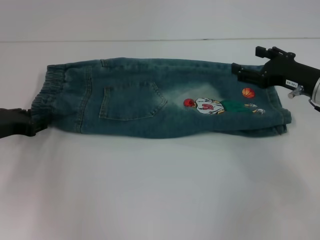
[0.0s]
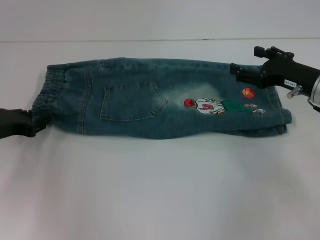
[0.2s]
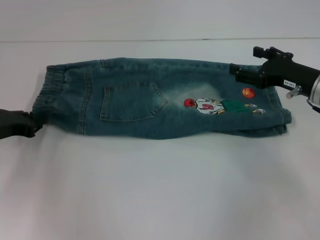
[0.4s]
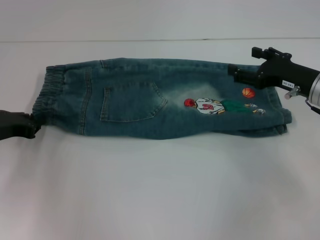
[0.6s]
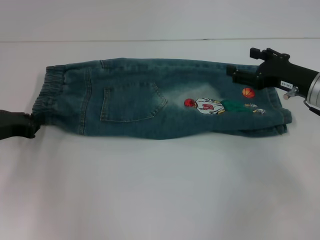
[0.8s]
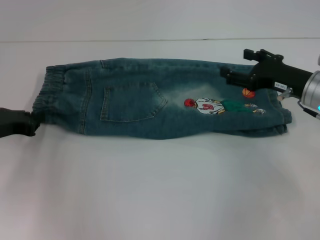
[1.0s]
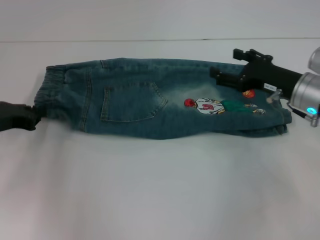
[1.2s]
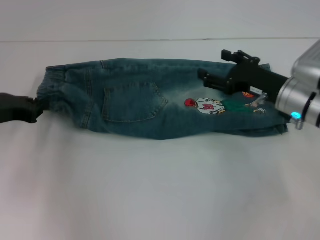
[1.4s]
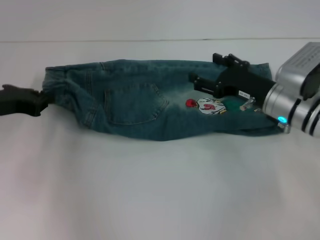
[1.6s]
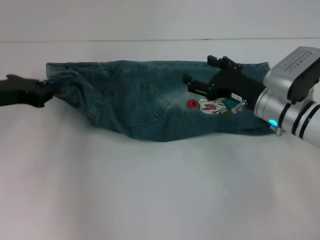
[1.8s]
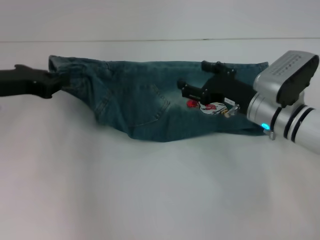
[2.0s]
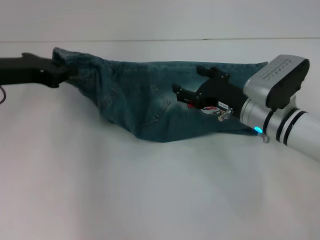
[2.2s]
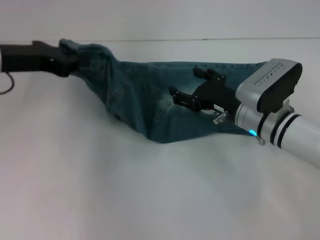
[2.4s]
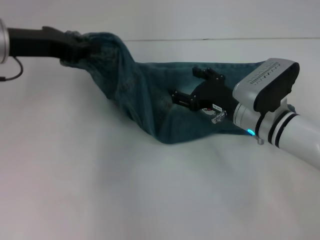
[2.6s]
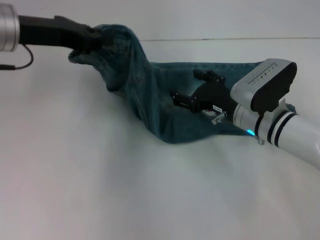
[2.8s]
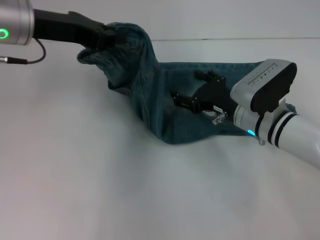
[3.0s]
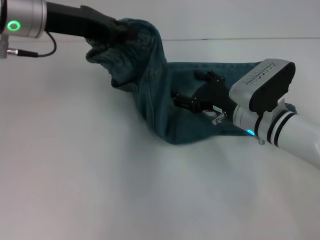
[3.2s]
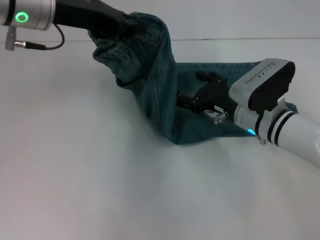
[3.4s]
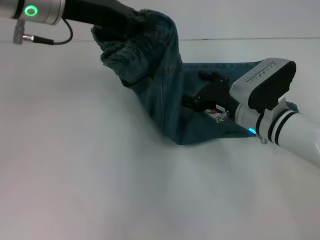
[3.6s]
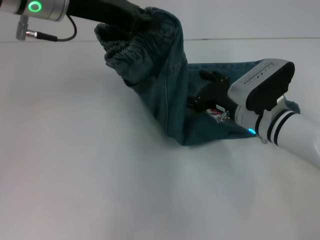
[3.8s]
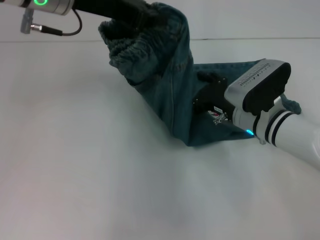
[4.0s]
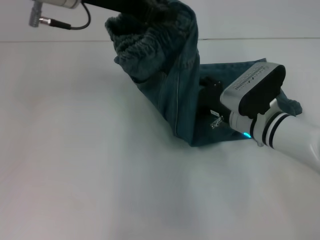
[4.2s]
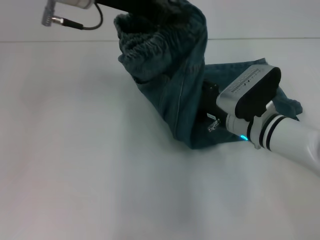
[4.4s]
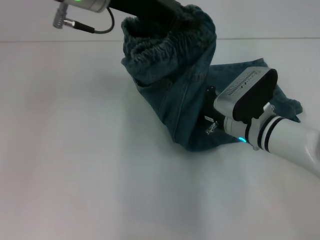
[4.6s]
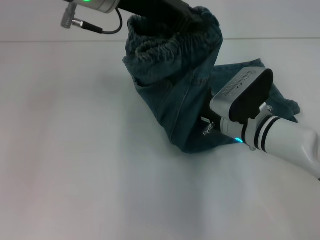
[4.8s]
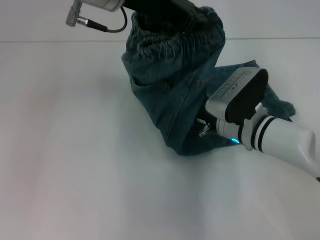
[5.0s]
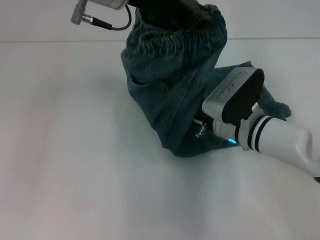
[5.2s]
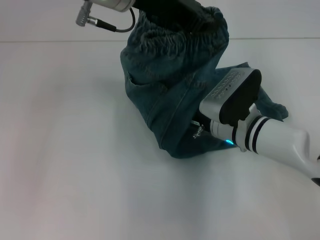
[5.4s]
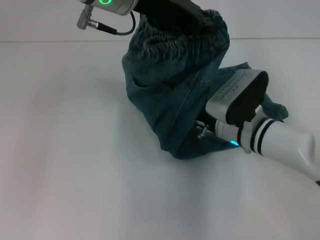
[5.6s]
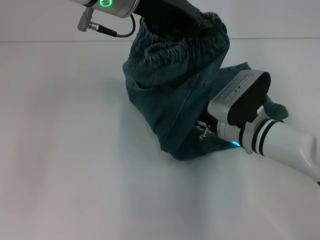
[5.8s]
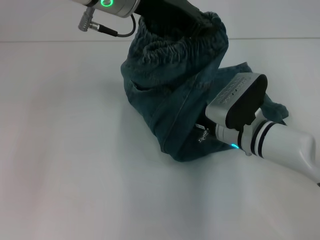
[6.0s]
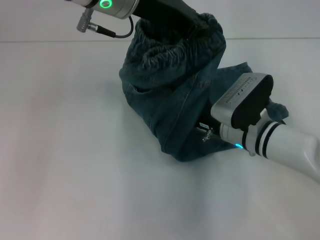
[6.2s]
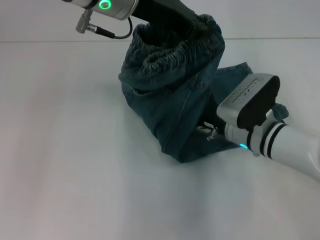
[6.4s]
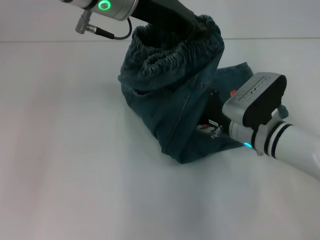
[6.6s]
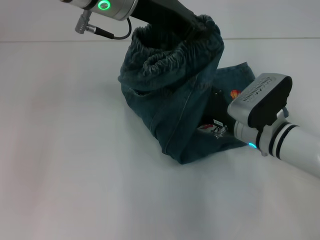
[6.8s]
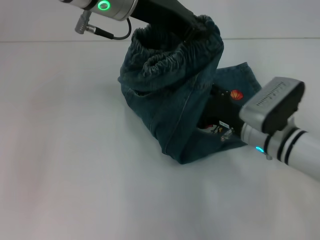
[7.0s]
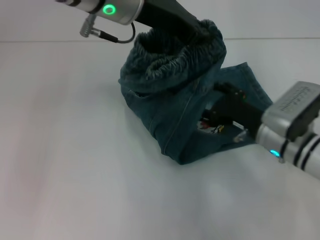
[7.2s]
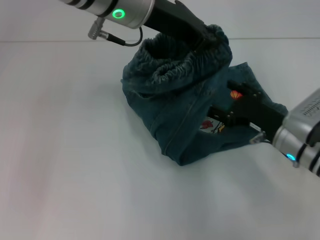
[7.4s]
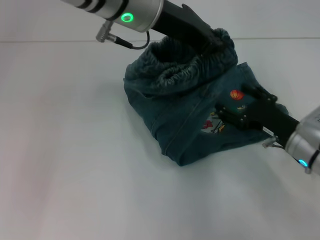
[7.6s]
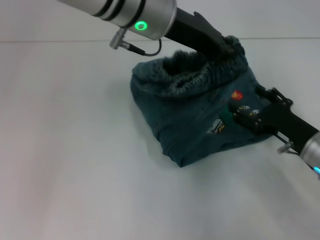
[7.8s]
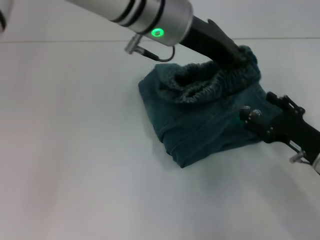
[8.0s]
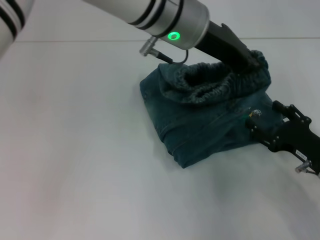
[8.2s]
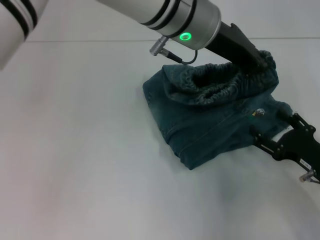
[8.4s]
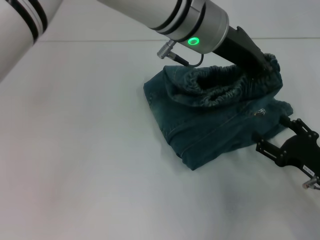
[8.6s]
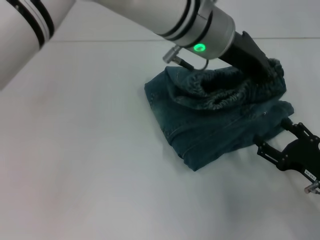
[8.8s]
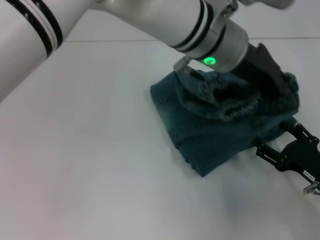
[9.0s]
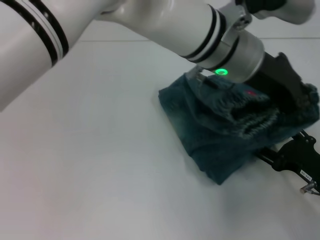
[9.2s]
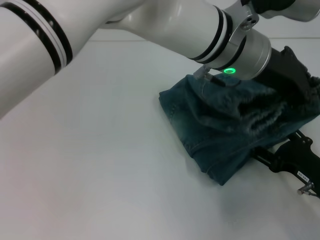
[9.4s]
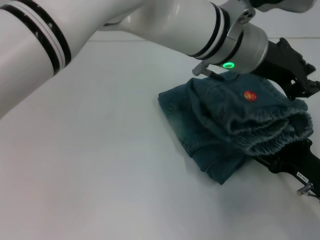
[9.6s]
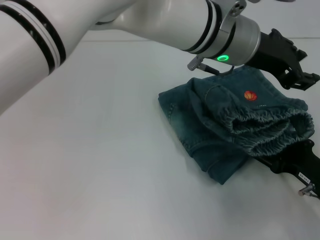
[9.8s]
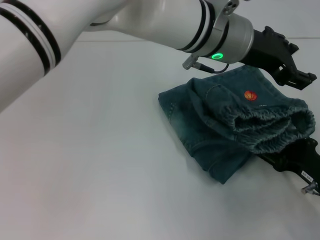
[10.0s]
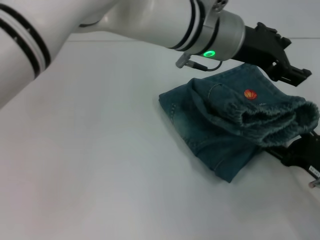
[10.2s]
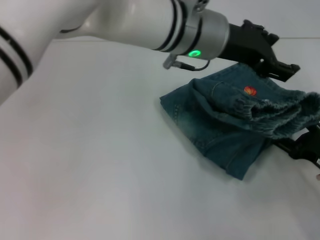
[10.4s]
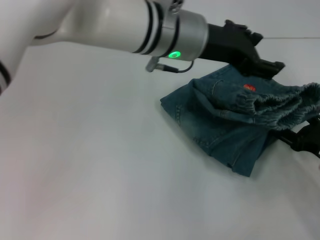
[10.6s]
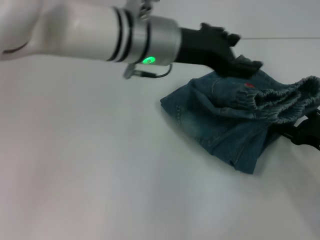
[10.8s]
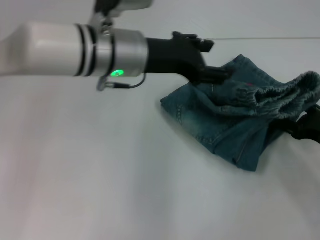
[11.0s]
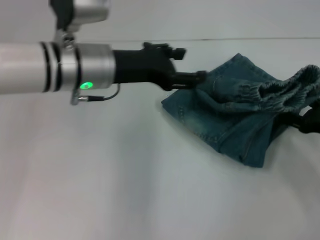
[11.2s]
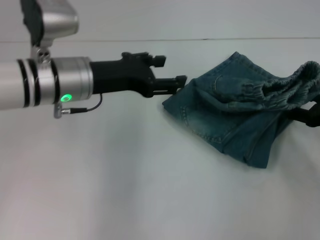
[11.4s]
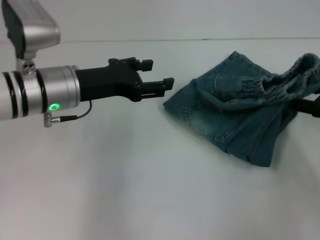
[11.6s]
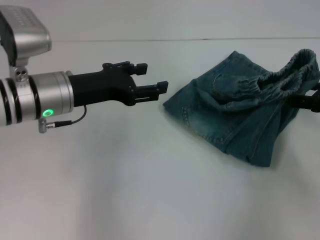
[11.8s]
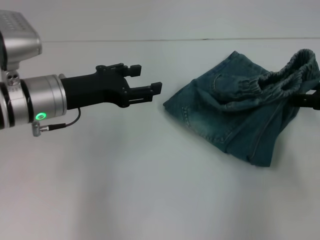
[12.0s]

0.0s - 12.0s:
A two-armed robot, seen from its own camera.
Step, 1.4s - 6.2s: Press the middle of the pants with your right hand.
Step, 6.4s - 10.0s: Fold to the right with your left hand.
0.0s - 1.6s: The left gripper shifts approximately 5 cm upward, and closes its fingers. The right gripper heads to the left, covering approximately 5 cm.
1.6s - 3.0s: The left gripper is displaced upward and to the right by some 15 cm.
3.0s - 4.4s: The left gripper heads to the right, covering roughly 10 cm.
4.4s - 6.0s: The grippers stay close to where they were, moving slightly.
6.0s - 7.6s: The right gripper moves to the right, about 10 cm.
7.6s - 9.0s: The left gripper shifts some 10 cm to the right. Meanwhile the right gripper is displaced backward by approximately 10 cm.
9.0s - 10.4s: The left gripper opens its fingers.
10.4s - 12.0s: The right gripper travels upward and forward by approximately 15 cm; the left gripper travels to the left and downward by about 20 cm.

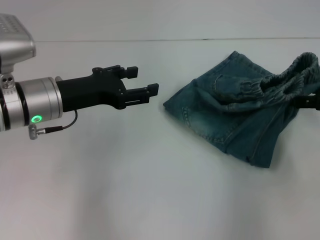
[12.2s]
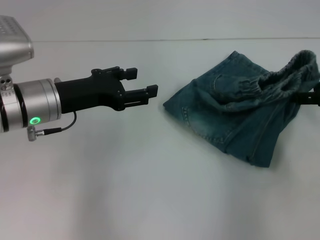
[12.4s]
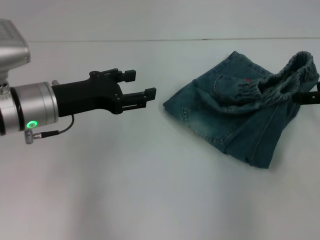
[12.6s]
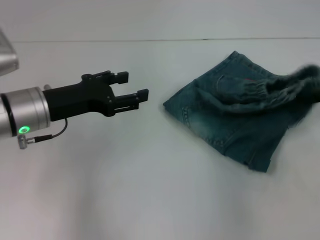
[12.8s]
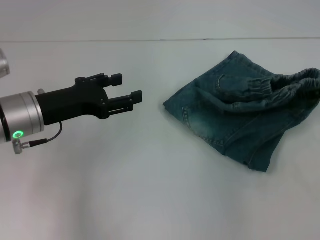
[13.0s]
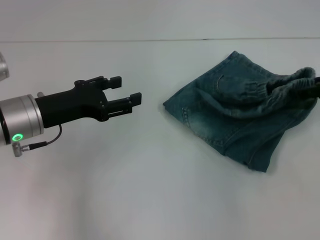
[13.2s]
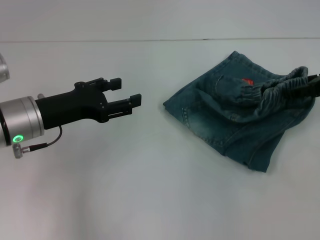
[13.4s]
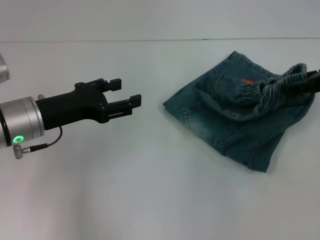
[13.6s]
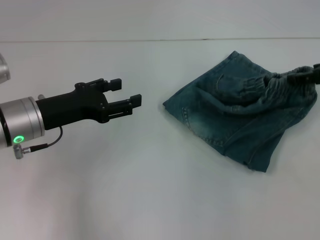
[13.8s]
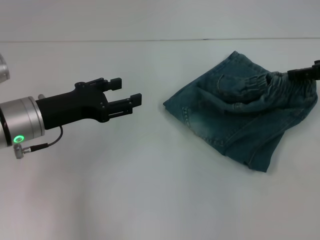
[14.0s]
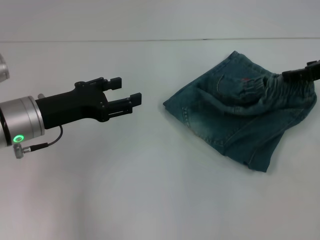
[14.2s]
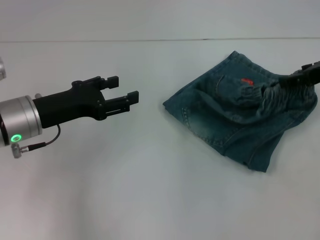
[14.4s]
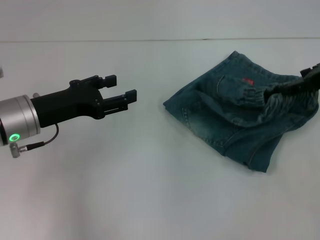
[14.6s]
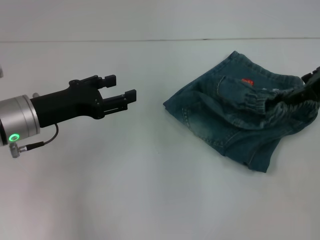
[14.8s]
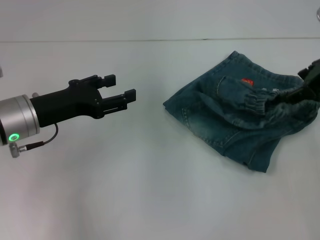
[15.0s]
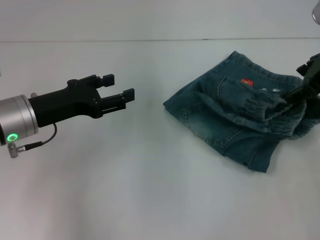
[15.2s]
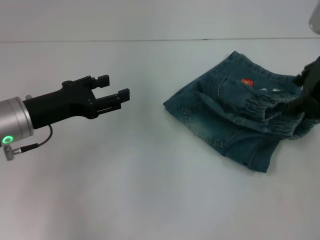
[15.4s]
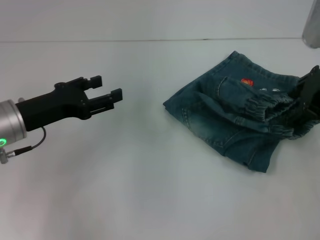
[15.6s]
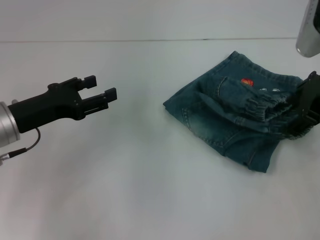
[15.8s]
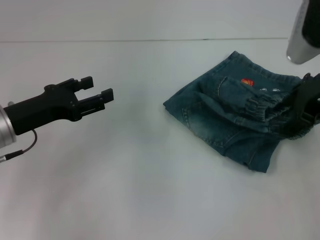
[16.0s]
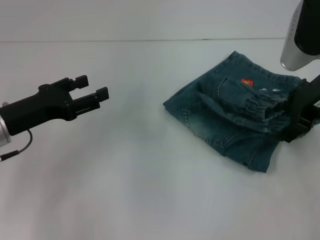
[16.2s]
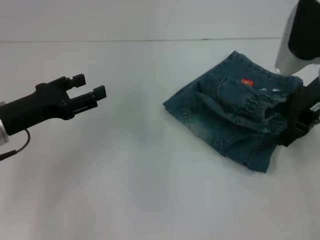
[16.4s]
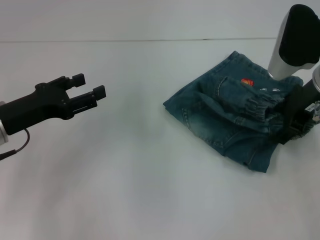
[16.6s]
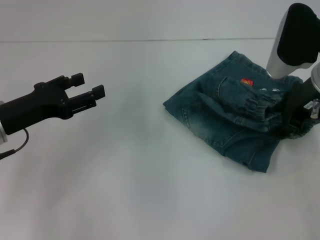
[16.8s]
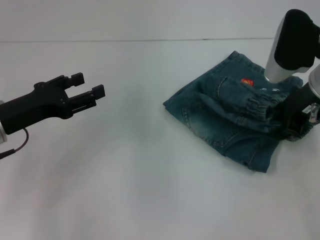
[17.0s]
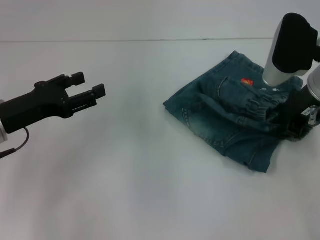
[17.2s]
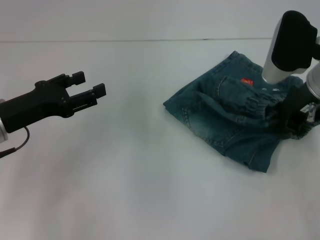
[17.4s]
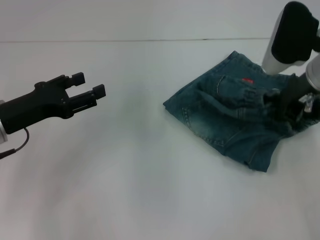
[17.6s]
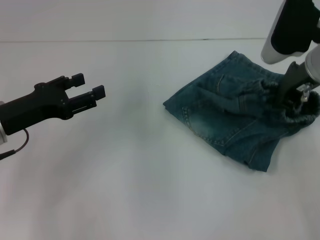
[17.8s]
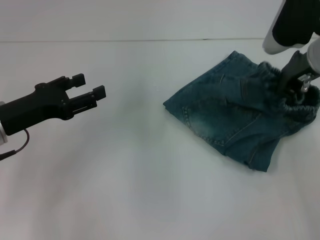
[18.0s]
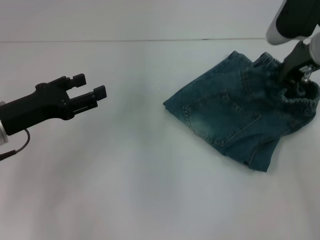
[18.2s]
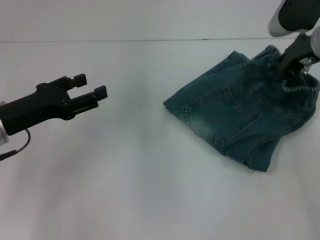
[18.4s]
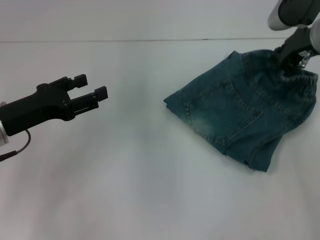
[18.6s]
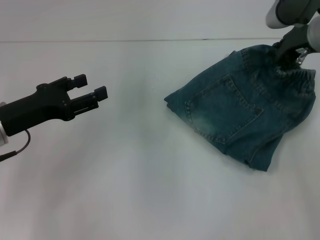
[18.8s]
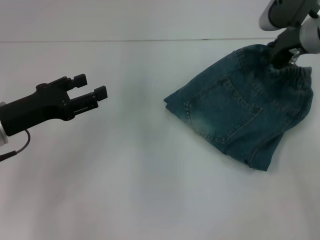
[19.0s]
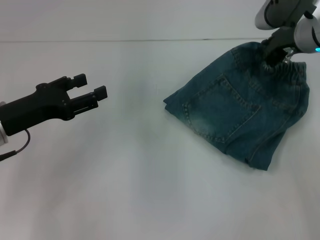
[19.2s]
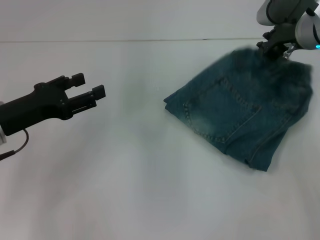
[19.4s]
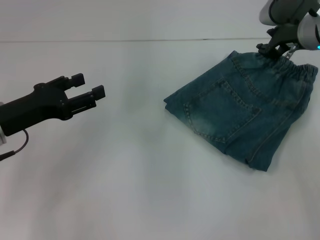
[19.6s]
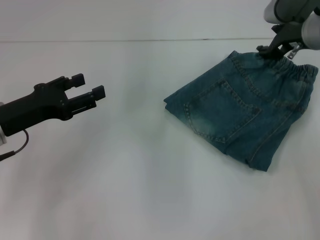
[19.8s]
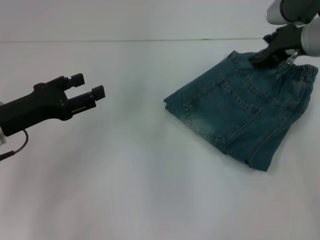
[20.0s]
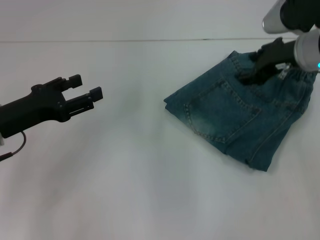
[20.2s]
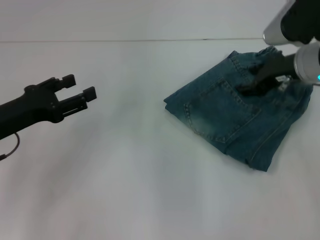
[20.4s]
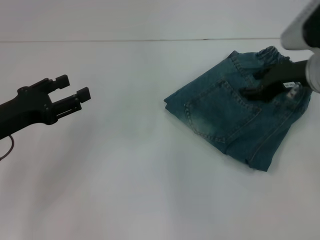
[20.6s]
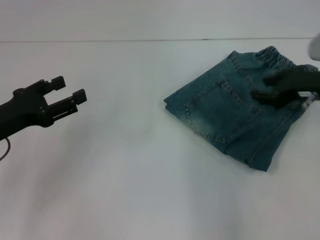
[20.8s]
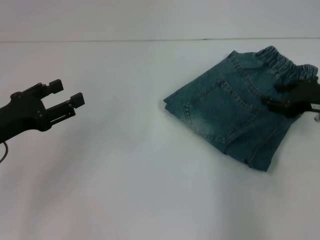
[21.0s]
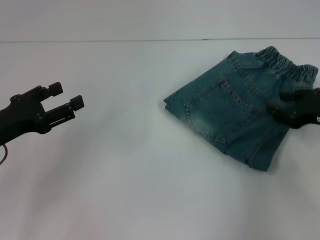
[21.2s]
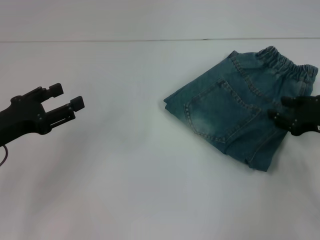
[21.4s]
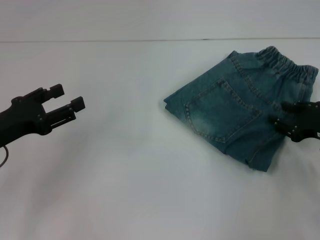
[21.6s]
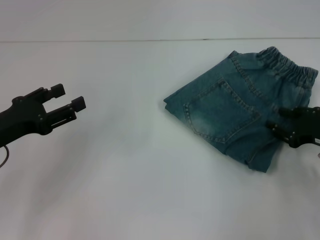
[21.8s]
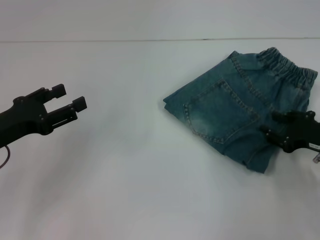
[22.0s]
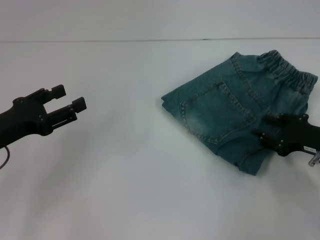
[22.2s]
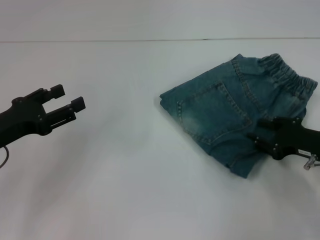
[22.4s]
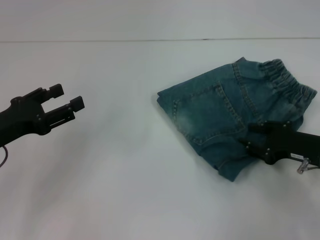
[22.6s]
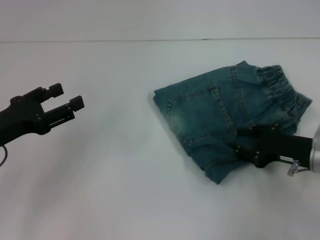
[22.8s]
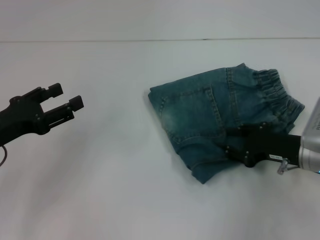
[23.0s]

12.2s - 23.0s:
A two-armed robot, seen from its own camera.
Step, 12.2s - 19.8s: Adjust the pants with your right hand.
12.2s - 13.8s: The right gripper shifts by about 5 cm.
13.8s - 15.2s: The right gripper shifts approximately 5 cm to the left.
15.2s - 16.8s: The right gripper changes place by approximately 5 cm.
16.8s - 18.4s: The right gripper closes up.
18.4s - 20.0s: The right gripper opens.
20.0s - 21.4s: The right gripper is displaced downward, backward and to the right by roughly 20 cm.
21.4s - 23.0s: The right gripper travels to the left by roughly 5 cm.
